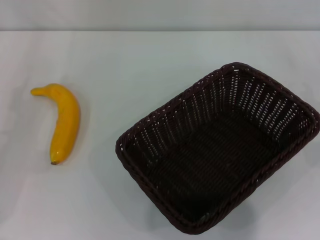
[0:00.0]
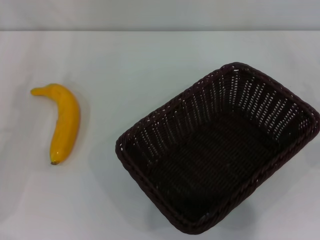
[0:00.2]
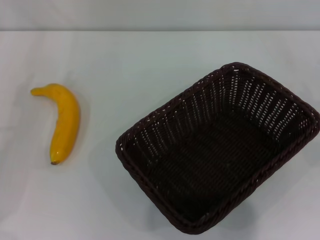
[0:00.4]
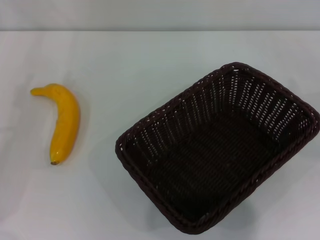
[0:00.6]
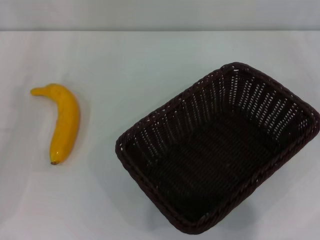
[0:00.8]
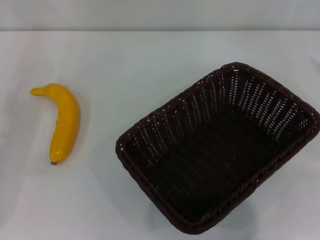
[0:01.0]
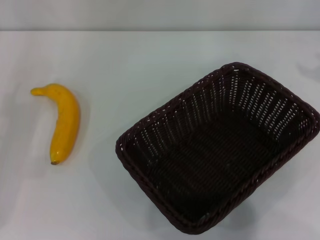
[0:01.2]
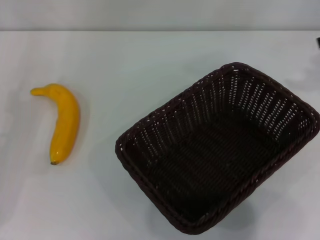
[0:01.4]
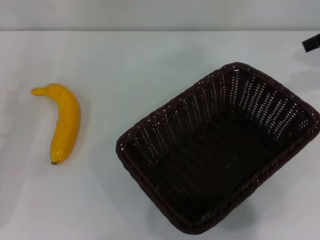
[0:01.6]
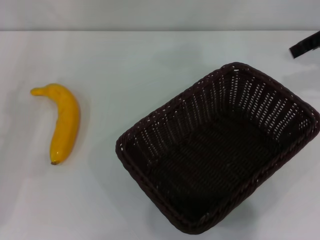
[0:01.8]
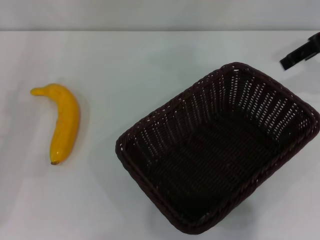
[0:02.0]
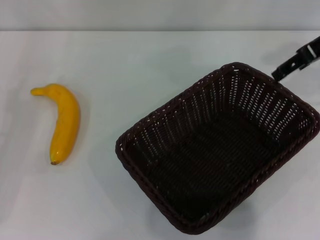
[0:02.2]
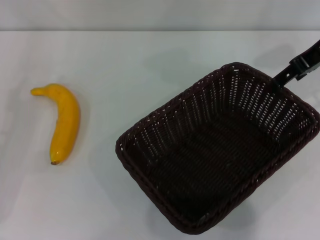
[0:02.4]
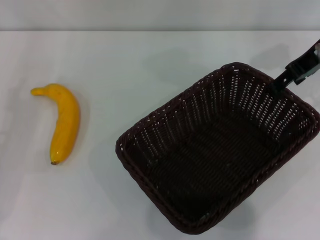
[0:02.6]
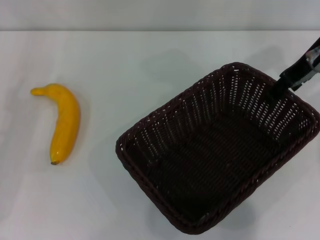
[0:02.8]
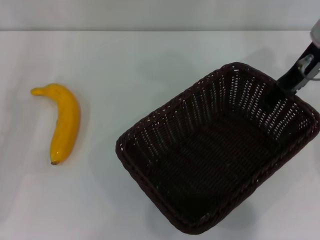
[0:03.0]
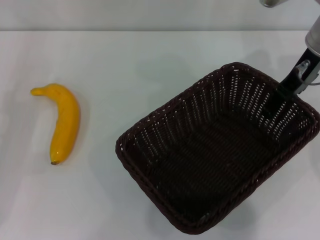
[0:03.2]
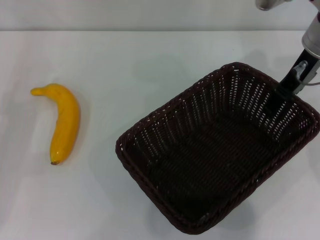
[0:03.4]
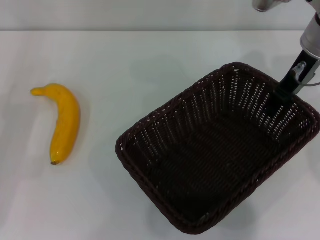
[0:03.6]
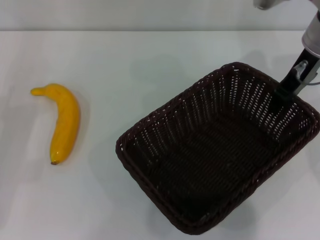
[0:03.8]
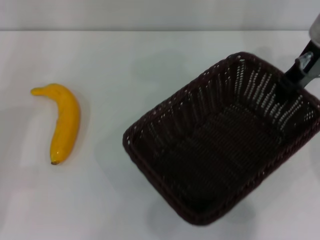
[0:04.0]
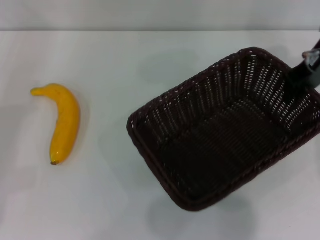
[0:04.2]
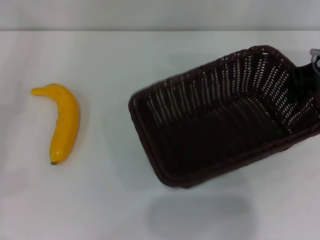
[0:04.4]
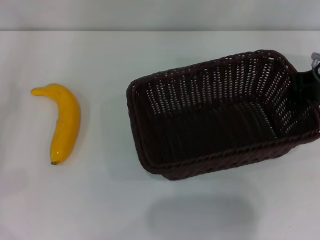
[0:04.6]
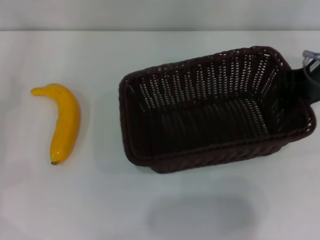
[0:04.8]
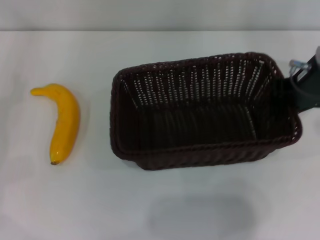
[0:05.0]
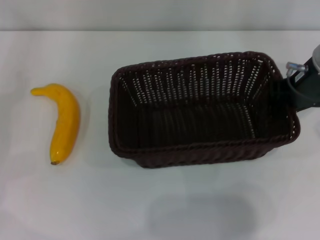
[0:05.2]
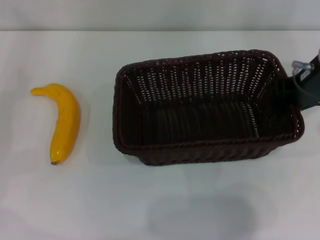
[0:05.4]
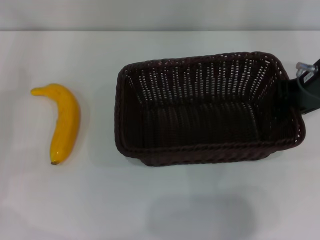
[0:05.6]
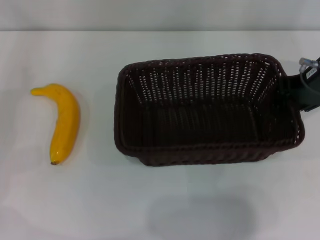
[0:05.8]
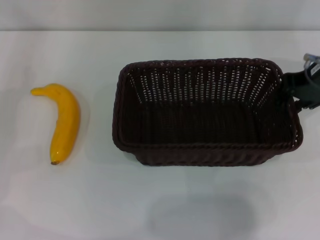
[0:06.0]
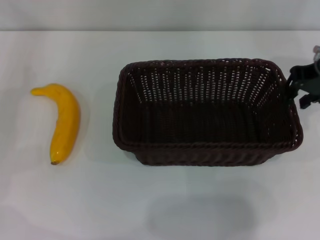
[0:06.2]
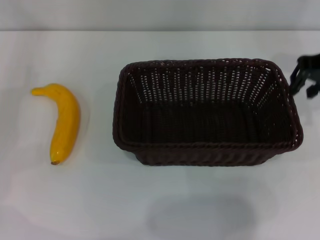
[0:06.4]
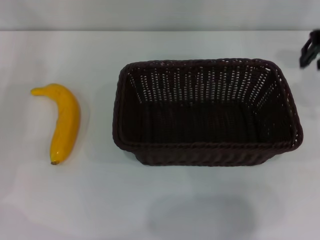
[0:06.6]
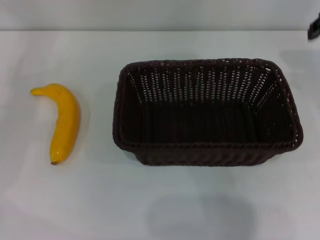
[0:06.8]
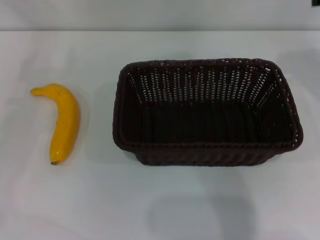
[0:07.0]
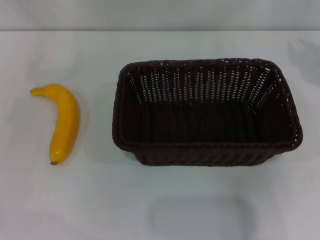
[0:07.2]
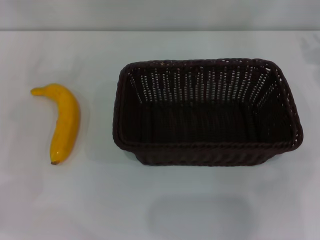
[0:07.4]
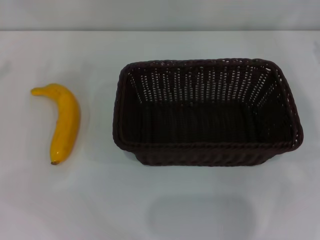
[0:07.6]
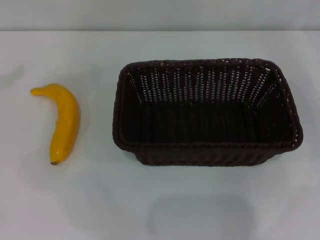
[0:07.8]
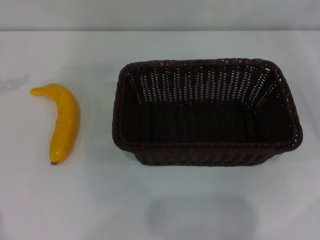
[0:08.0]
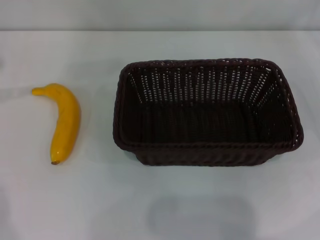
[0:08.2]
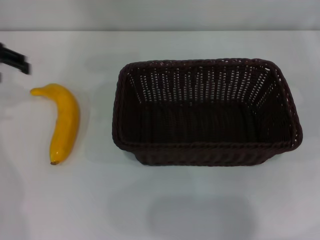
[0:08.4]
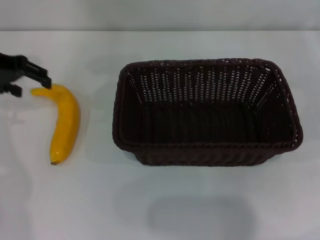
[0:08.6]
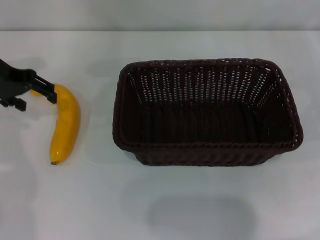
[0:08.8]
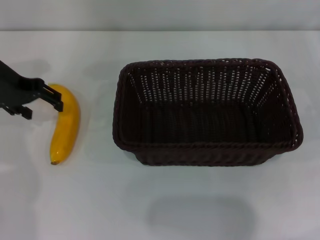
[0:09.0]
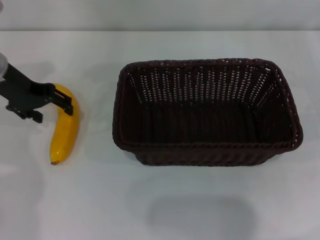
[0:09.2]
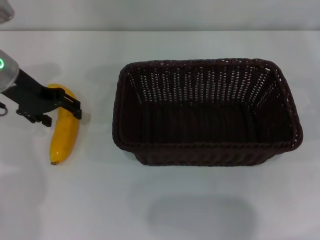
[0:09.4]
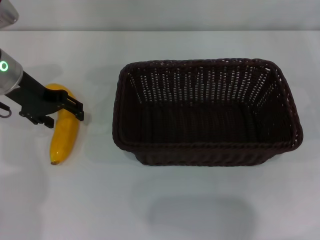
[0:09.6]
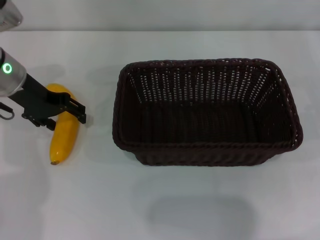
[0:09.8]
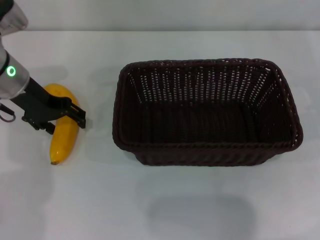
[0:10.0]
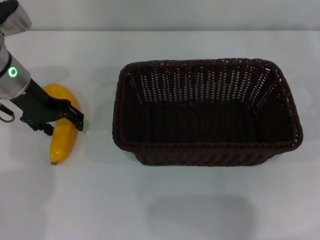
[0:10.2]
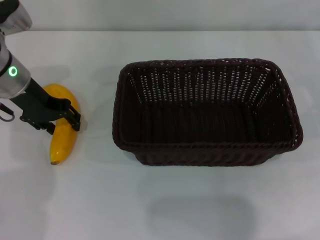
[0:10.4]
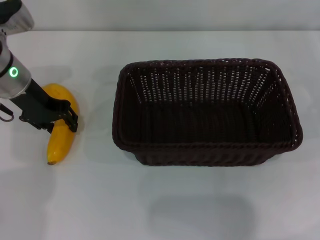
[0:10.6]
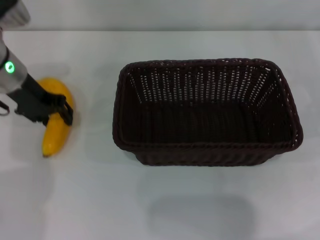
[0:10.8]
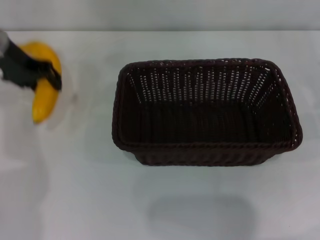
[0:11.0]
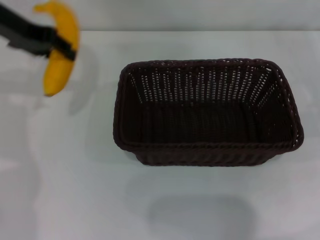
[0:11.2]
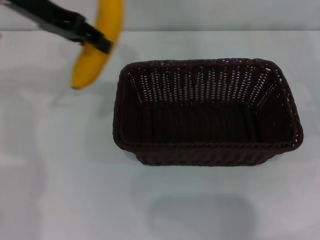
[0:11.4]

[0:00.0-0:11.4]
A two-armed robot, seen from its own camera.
Step, 0:00.0 to 0:04.0: Pick up the dark basket with the right gripper.
Step, 0:04.2 to 0:06.4: Place the dark basket in the center of view with the right gripper.
Step, 0:06.8 to 0:10.8: Pick up the banana with the left gripper.
0:01.4 to 0:02.8: The right gripper shifts some 15 cm to the left.
0:02.8 to 0:04.2: The right gripper closes its fingers.
0:04.2 to 0:05.6: The left gripper moves some 5 cm.
0:05.6 to 0:07.2: The left gripper travels upward by roughly 5 cm; the right gripper moves to the right, approximately 10 cm.
0:07.2 to 0:08.6: The left gripper shifts some 15 cm to the right and forward.
0:08.6 to 0:10.0: The left gripper goes approximately 10 cm downward and to the right.
0:10.0 to 0:11.4: The left gripper is displaced upward by roughly 15 cm, and closes its fingers.

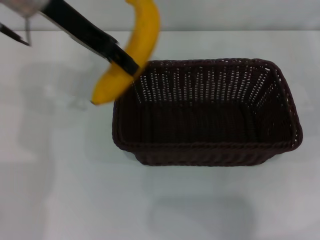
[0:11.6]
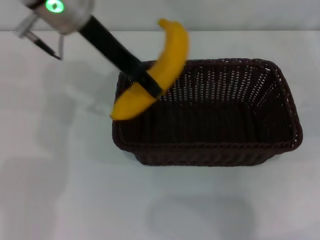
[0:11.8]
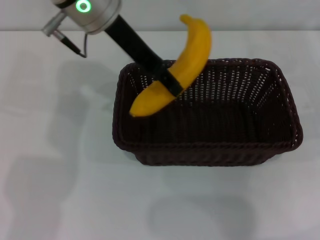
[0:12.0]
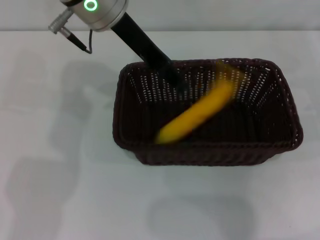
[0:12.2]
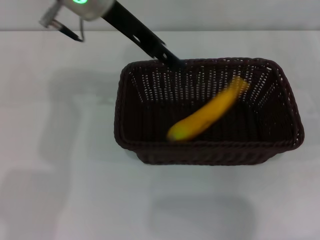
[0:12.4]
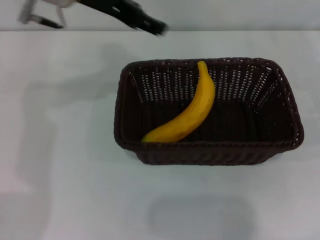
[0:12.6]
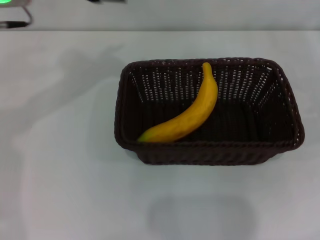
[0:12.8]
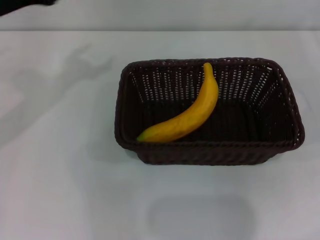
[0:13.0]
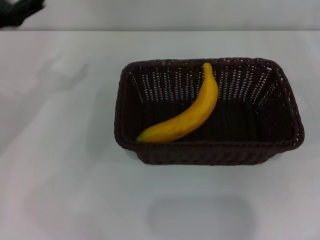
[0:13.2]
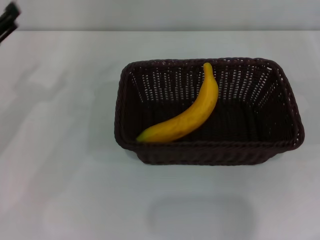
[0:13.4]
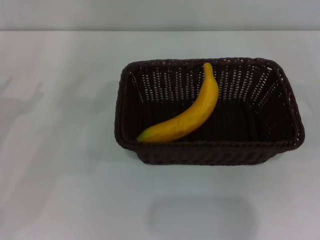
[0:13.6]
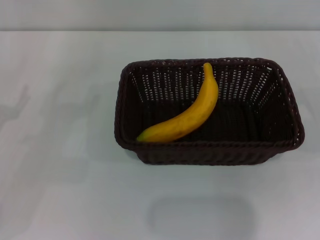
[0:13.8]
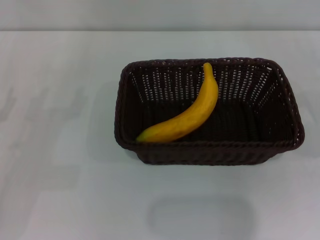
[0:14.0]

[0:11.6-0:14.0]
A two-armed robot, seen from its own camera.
Step, 0:11.6 to 0:12.4: Place the banana into the dark basket with the left gripper.
0:11.6 to 0:12.8: The left gripper moves some 5 cm, and opens its fingers.
0:12.8 to 0:14.0: The left gripper is displaced downward, to the left and backward by approximately 25 cm.

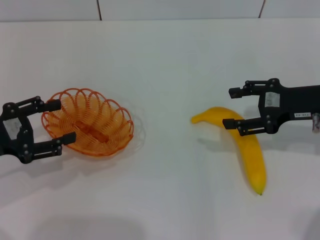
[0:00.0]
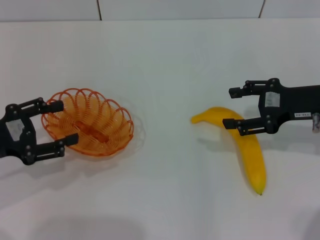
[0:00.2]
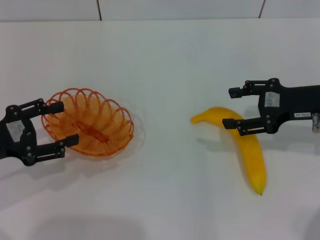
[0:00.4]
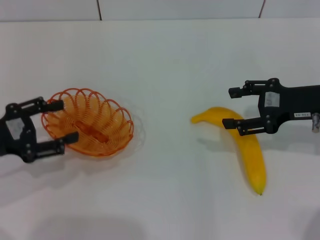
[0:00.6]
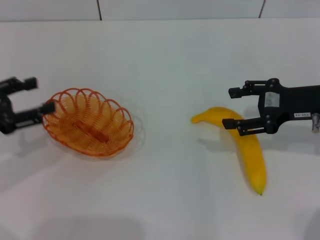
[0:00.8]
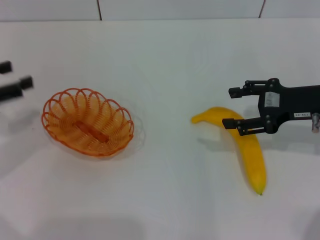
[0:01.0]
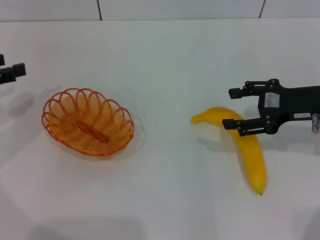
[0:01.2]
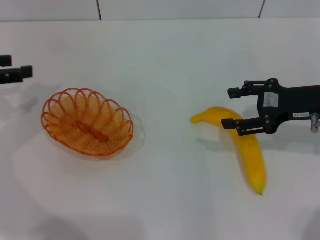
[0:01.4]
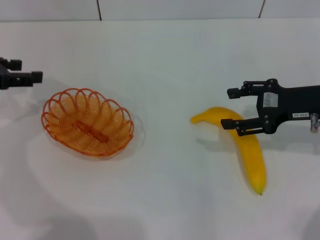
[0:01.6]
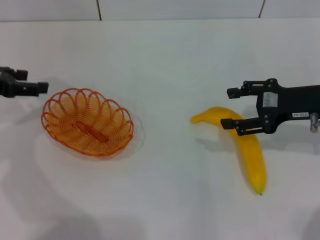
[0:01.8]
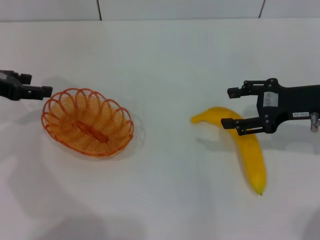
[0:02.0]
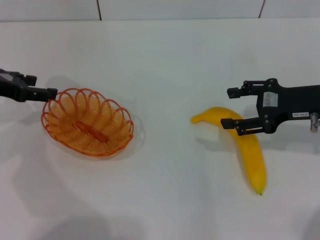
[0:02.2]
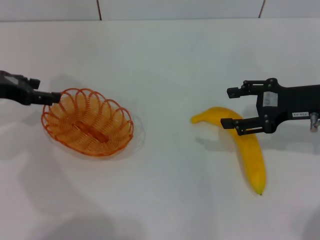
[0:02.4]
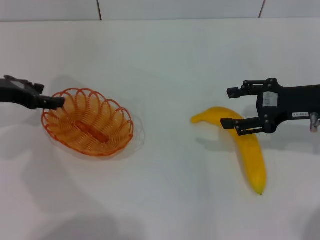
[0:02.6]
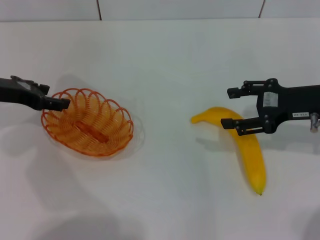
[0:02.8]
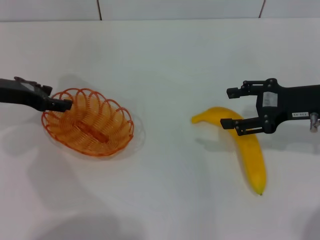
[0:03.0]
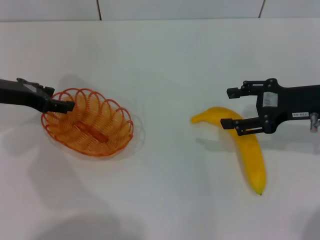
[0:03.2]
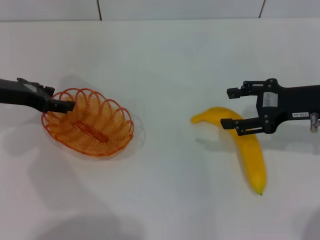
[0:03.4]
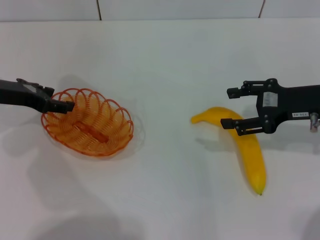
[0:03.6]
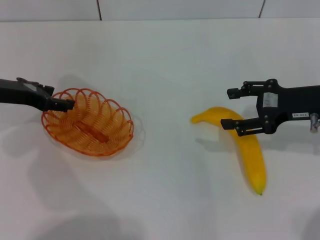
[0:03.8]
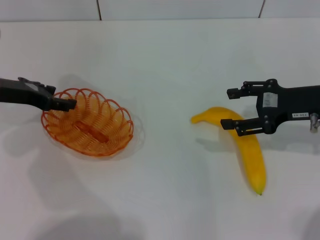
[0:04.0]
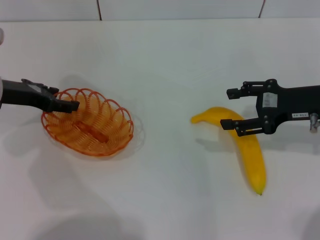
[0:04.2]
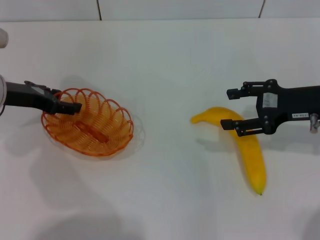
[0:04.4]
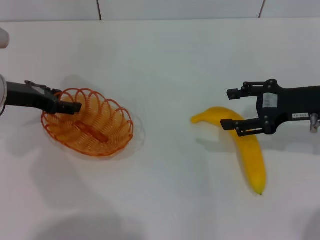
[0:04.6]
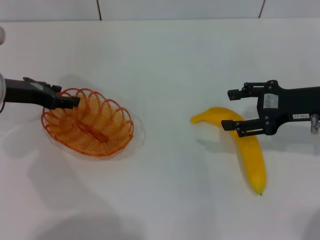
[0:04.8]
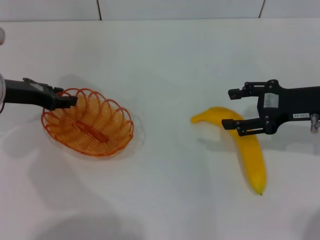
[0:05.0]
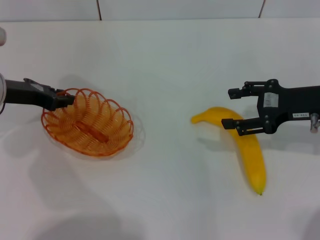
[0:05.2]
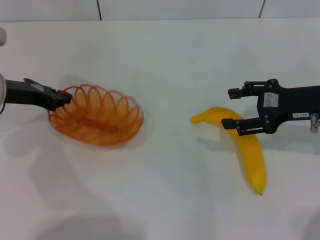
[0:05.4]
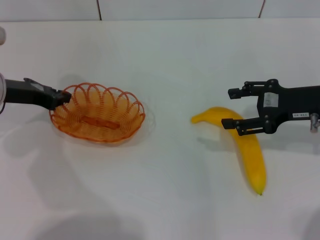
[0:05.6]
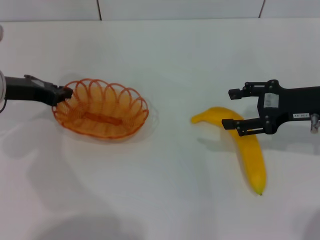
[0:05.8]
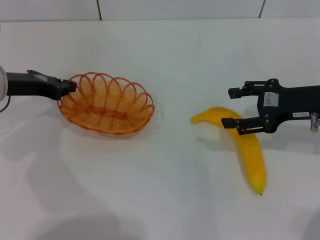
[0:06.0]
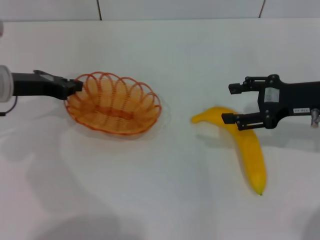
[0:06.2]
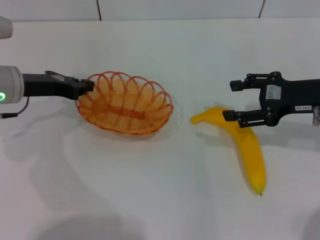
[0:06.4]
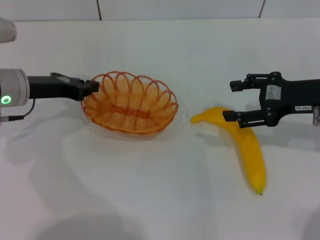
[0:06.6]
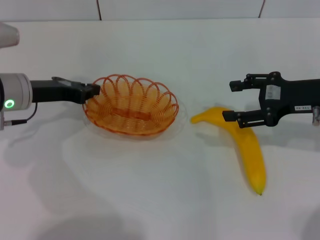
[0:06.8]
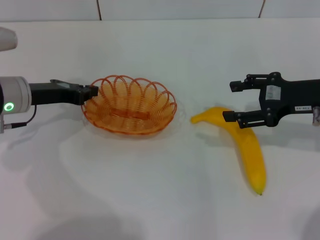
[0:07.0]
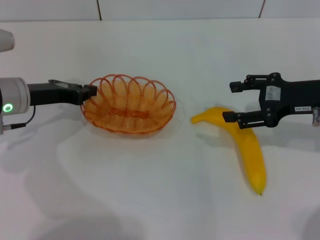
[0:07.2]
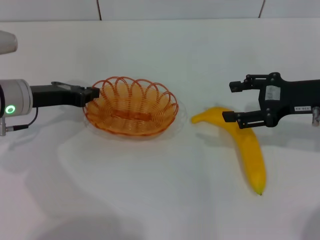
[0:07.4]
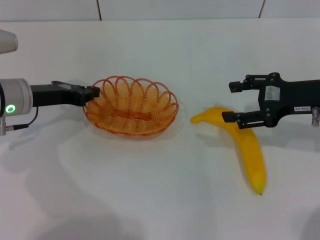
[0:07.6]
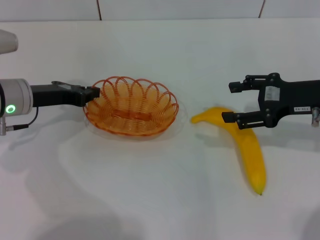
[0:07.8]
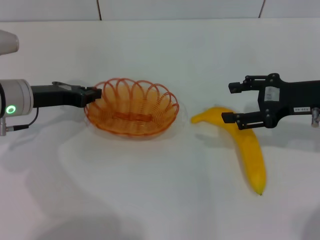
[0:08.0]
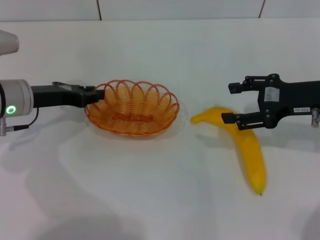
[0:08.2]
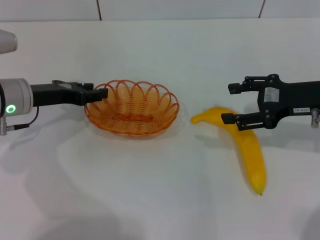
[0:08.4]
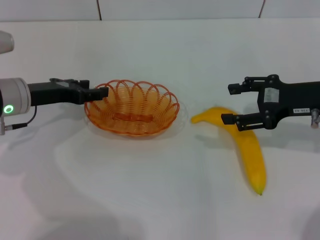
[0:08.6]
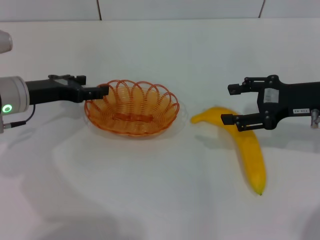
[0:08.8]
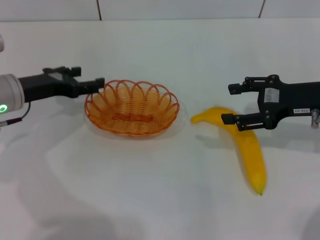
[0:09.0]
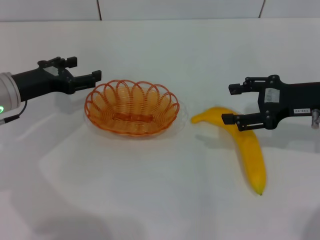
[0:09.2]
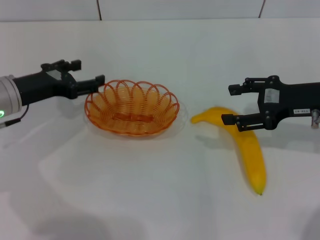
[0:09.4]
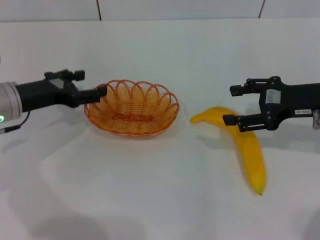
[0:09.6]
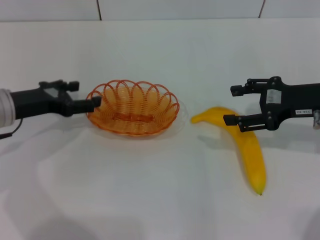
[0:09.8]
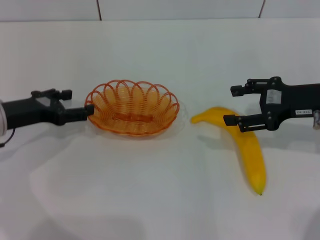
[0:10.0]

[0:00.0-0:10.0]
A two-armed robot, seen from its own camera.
Step, 0:00.0 to 0:05.8: Pick up the basket with the left gripper.
Step, 0:06.0 to 0:08.8: Place the basket in the center of view with the left gripper.
0:00.0 to 0:01.4: The left gripper goes about 10 cm forward and upward.
0:01.4 to 0:02.8: The left gripper moves to the right, some 5 cm.
0:02.8 to 0:04.2: The grippers move only a little.
0:04.2 to 0:05.8: The left gripper closes up.
0:05.8 to 0:07.2: The grippers stay close to where they were, moving slightly.
0:07.2 to 0:08.6: The left gripper opens up.
0:08.6 to 0:10.0: The left gripper opens.
